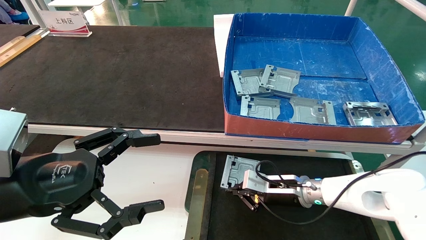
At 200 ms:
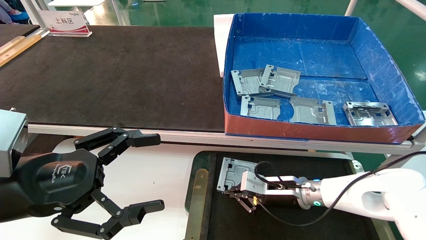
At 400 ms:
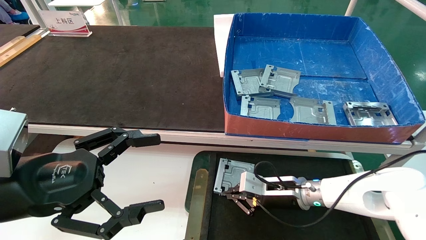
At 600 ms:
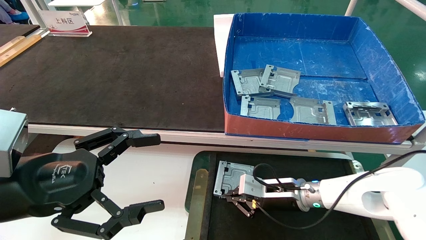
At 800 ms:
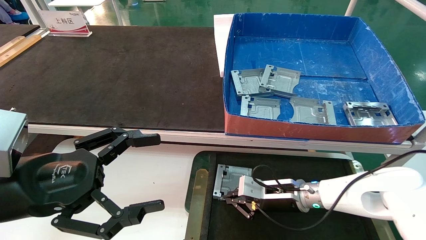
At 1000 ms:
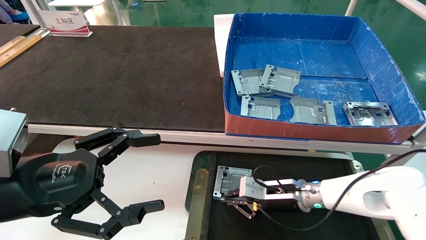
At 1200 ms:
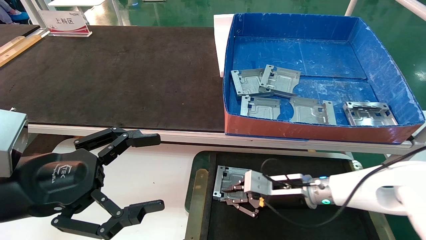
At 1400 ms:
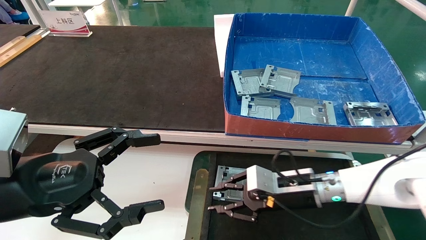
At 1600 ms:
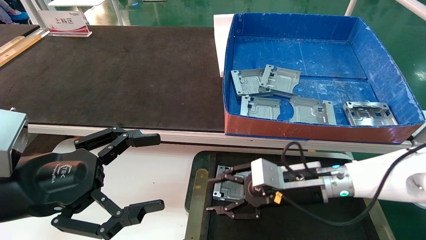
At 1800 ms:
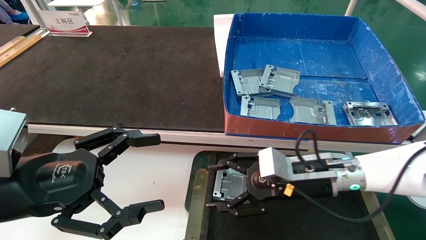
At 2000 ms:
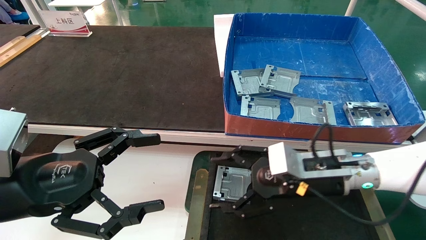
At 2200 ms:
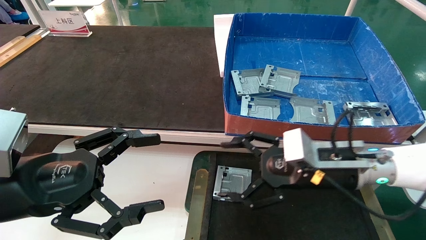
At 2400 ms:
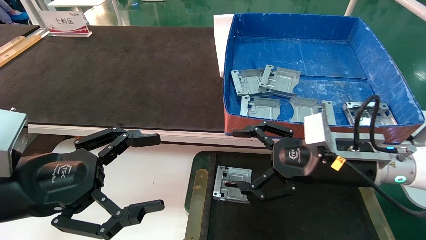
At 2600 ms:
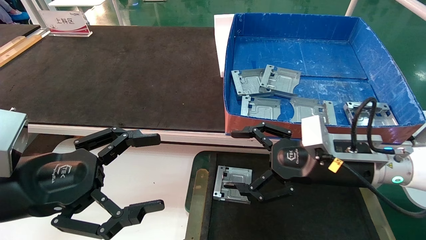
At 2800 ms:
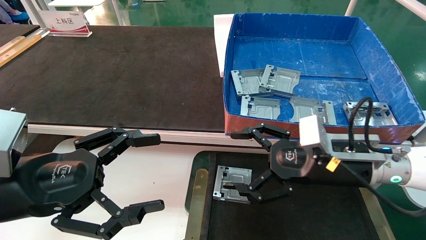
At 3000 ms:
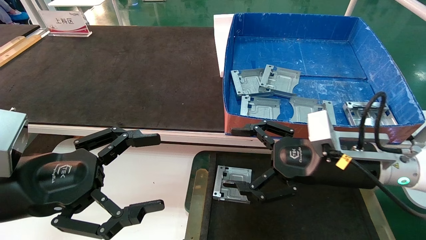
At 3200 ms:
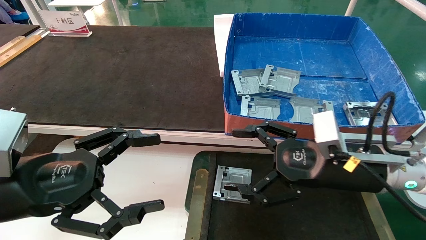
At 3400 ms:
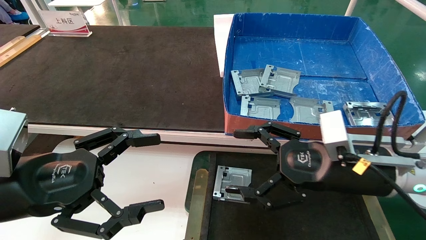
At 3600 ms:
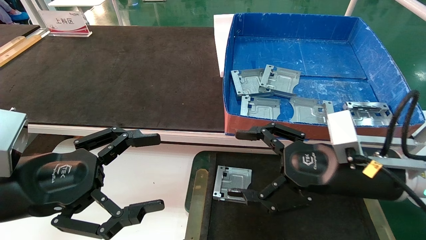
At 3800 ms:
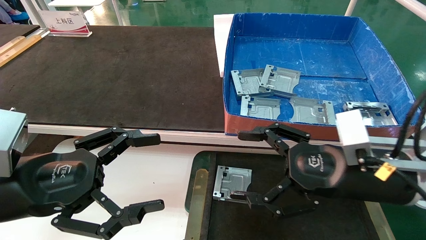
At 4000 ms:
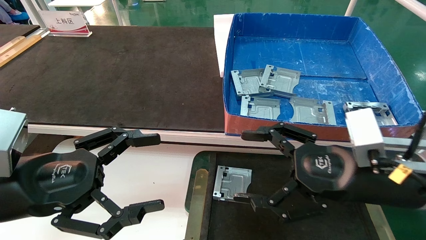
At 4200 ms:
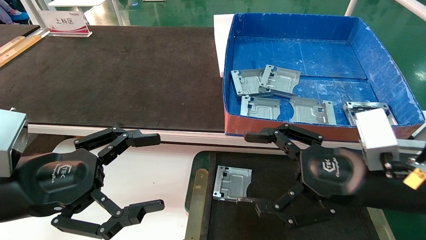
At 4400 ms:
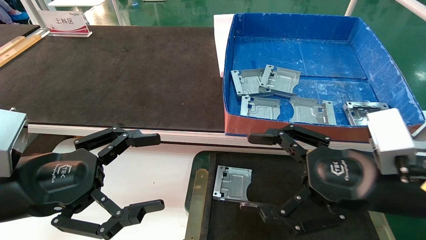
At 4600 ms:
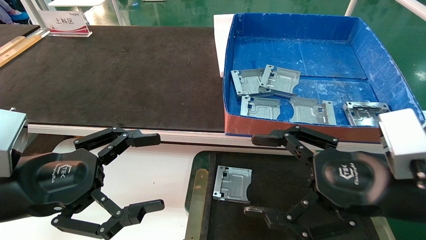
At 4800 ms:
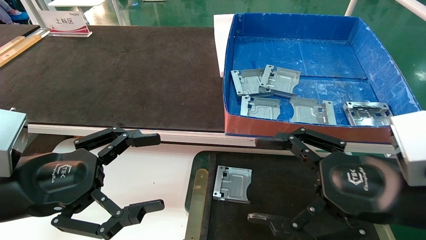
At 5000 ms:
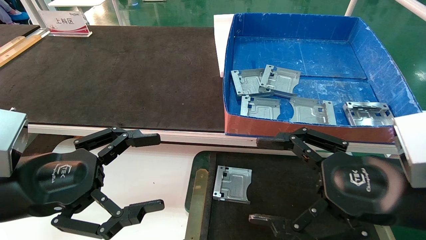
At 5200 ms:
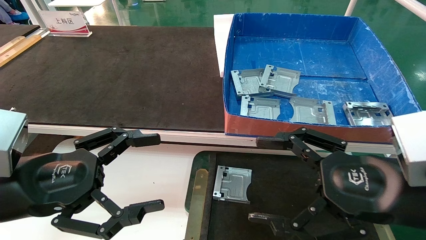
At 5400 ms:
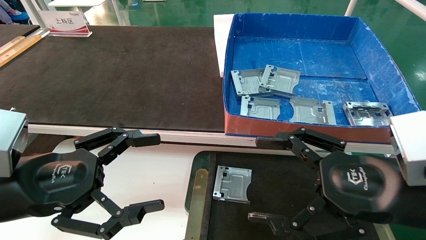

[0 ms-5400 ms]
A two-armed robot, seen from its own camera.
Task of the whole recording: pick up parts and place them into a black container.
0 ms to 1400 ms: The right gripper goes about 5 cm upward.
1400 ms to 2800 ms: The right gripper shifts about 10 cm upward and backward, and opens its fingers.
2800 ms to 4000 ms: The right gripper is displaced backward by some 5 cm.
4000 ms to 5400 ms: The right gripper goes roughly 5 cm backward.
